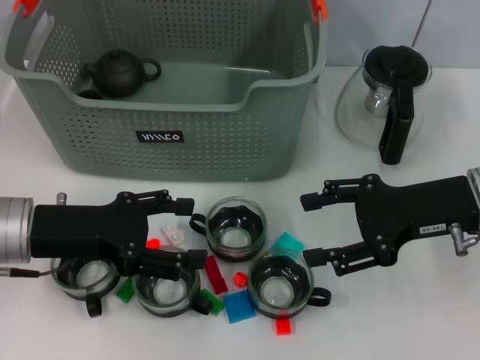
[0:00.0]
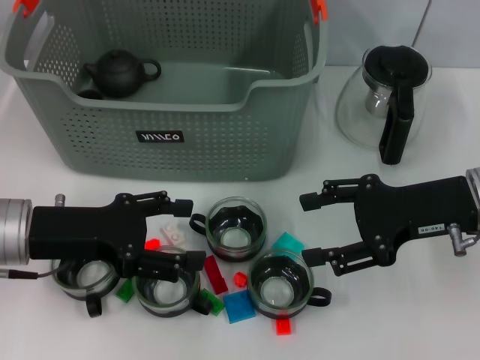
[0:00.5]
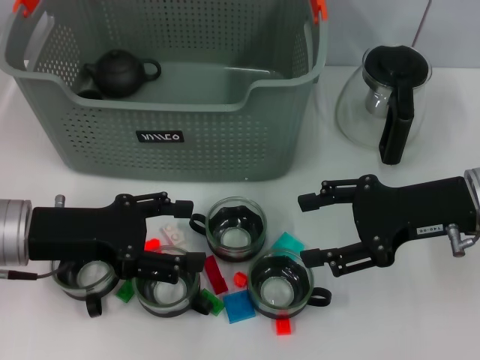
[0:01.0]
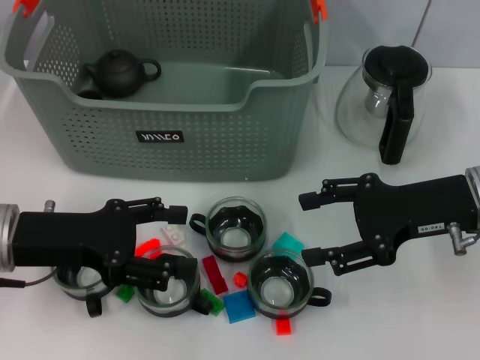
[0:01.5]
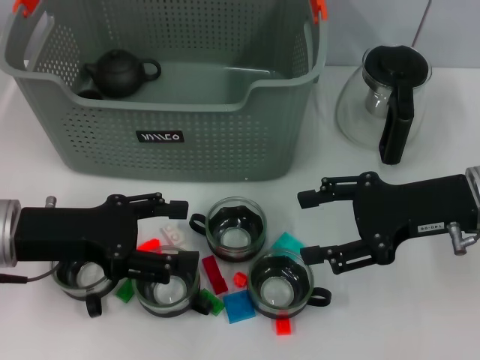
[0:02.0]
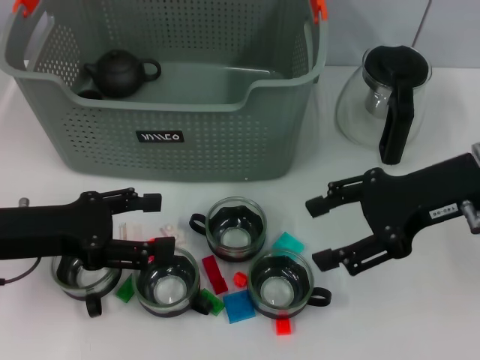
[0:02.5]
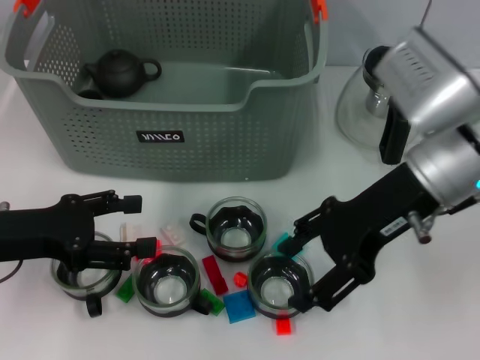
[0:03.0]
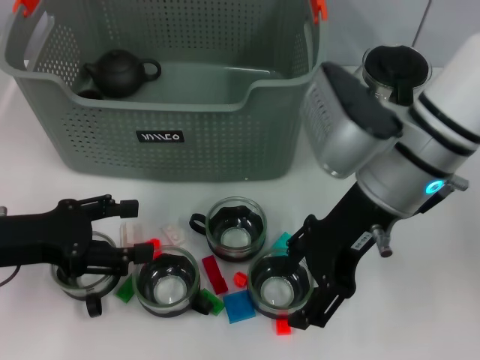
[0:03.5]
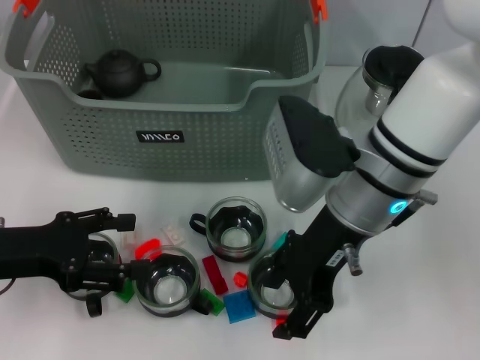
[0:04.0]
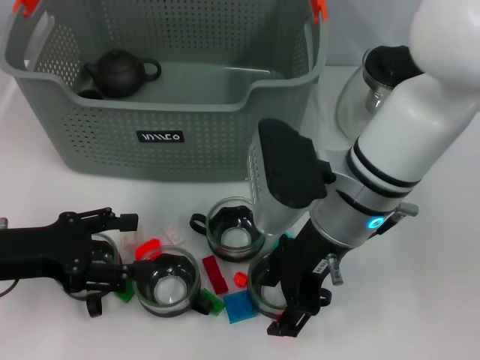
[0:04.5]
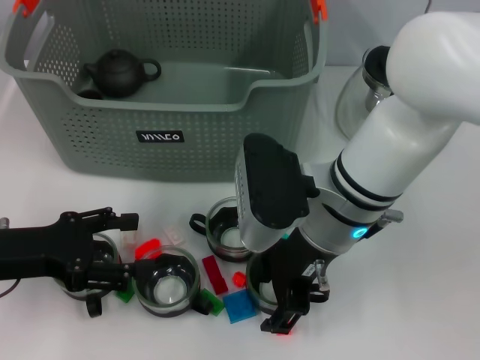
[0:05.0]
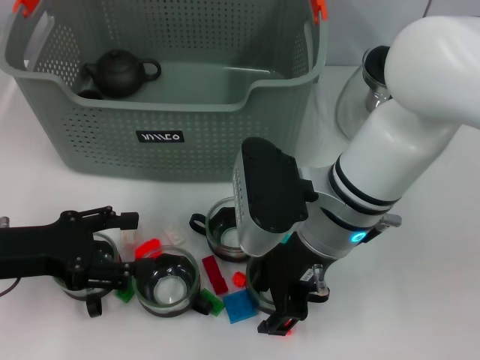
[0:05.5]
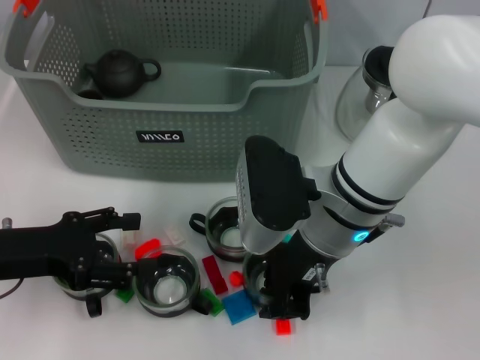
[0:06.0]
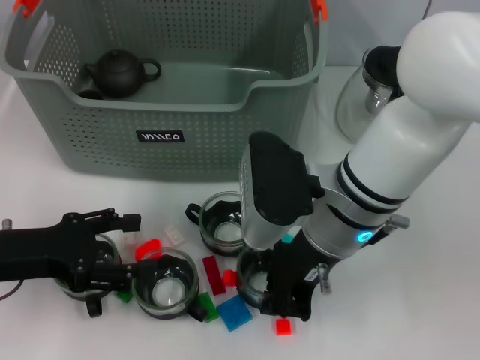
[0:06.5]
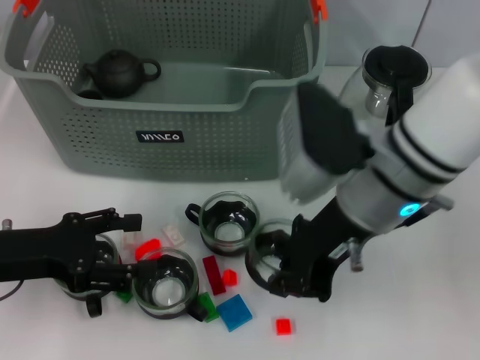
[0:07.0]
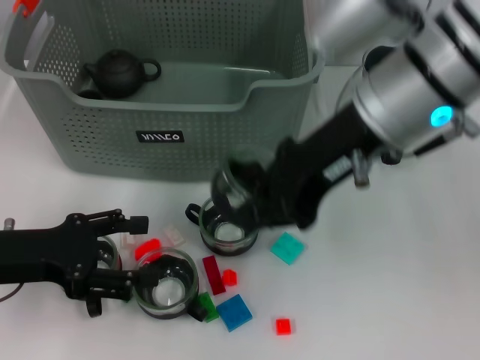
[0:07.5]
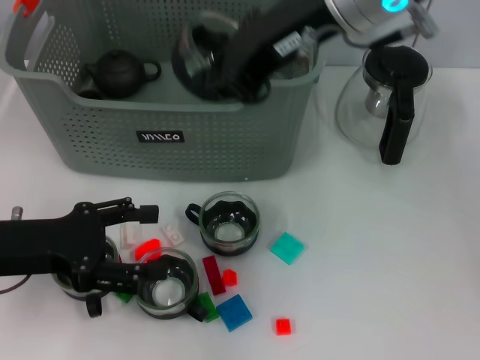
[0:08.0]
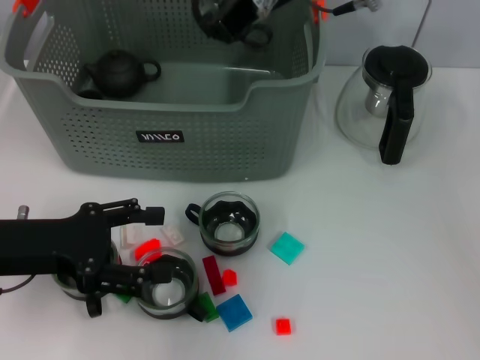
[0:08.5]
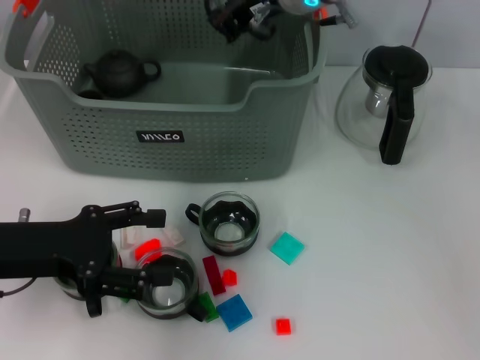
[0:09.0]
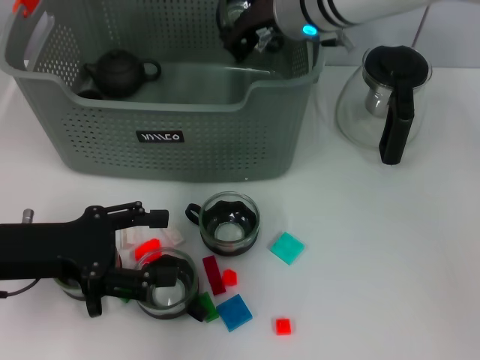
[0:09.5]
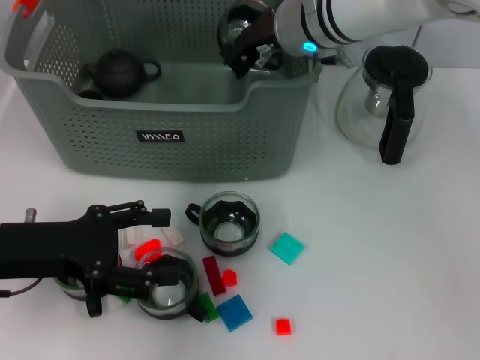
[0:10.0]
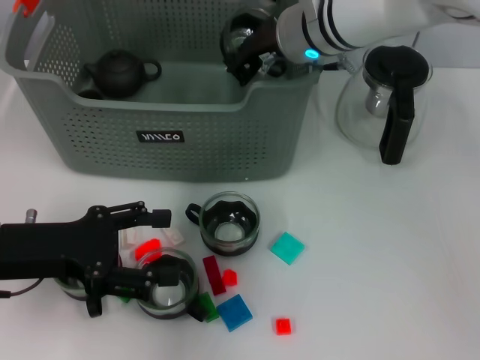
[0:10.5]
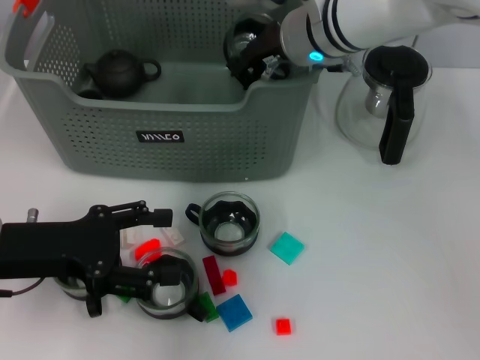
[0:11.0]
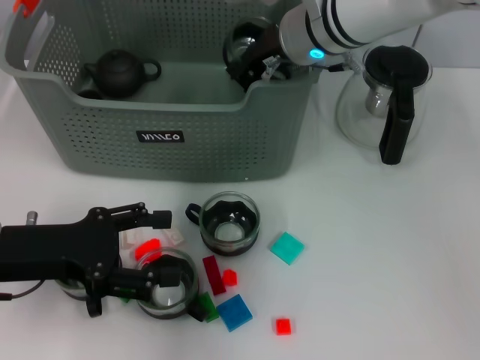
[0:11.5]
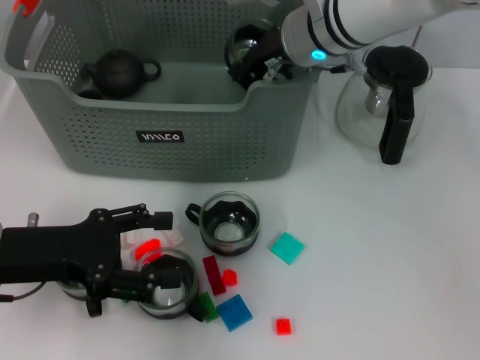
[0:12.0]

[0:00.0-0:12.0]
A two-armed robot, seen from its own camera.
Task of the whole recording: pick up the teacup on the table and place it into the storage bin, pick up the block on the table and place it into the storage bin.
Step, 0:00.0 to 0:05.5: Grasp the cup with right gripper.
0:00.0 to 0:02.0: Neither gripper changes place.
0:02.0 to 0:04.0: The right gripper is displaced to the left by approximately 15 cm.
0:04.0 to 0:06.0: The right gripper closes.
0:06.0 to 0:08.0: The right gripper shifts about 20 cm upward, and closes.
0:08.0 to 0:10.0: The right gripper heads downward and forward, covering about 15 cm.
0:10.0 to 0:12.0: The grippers make only small movements.

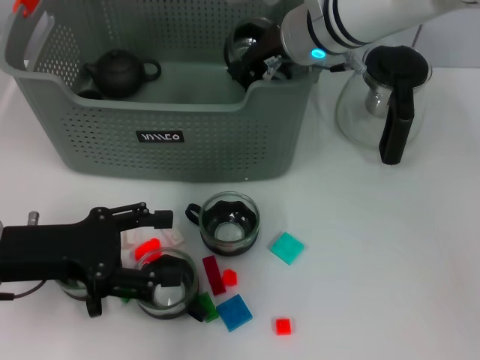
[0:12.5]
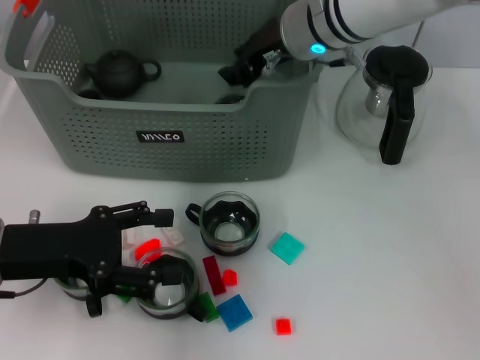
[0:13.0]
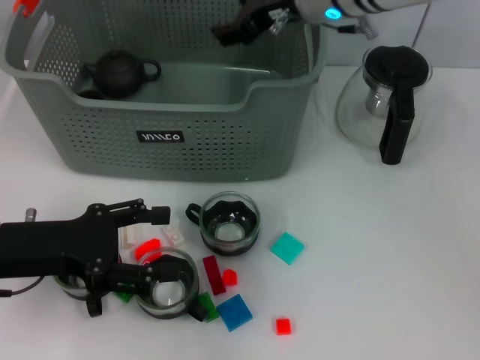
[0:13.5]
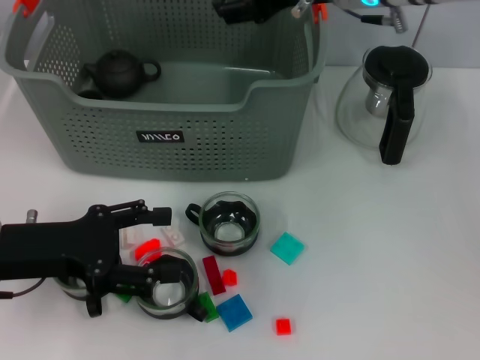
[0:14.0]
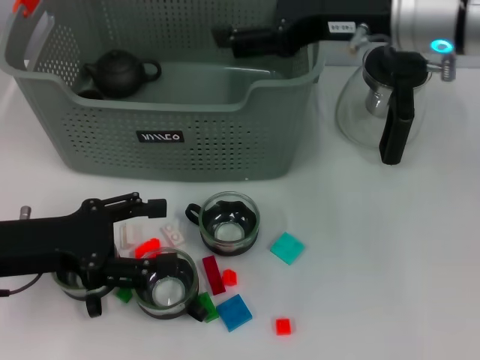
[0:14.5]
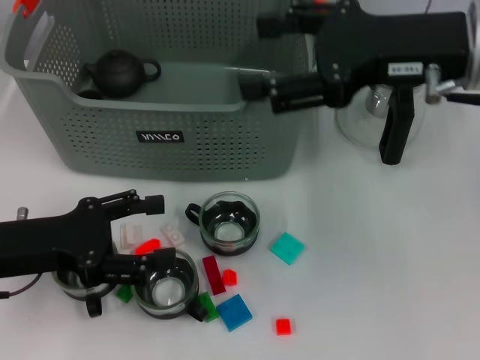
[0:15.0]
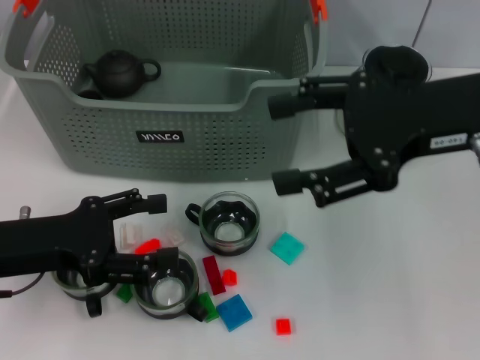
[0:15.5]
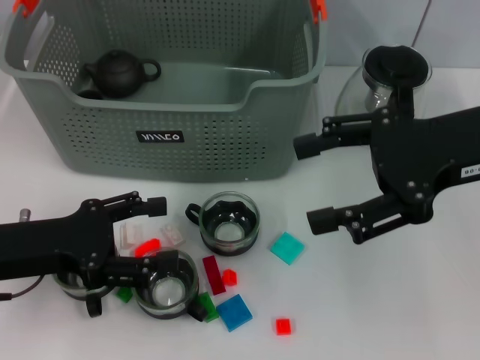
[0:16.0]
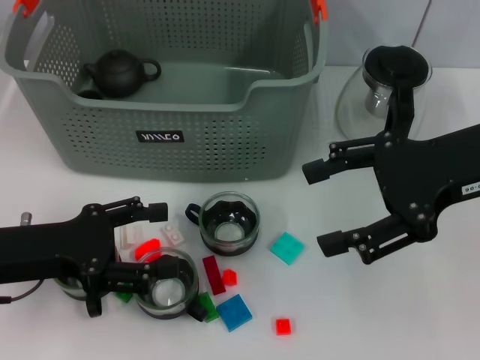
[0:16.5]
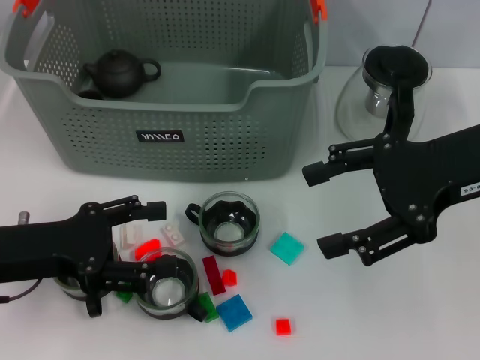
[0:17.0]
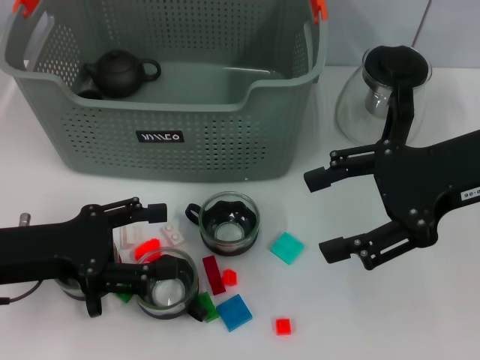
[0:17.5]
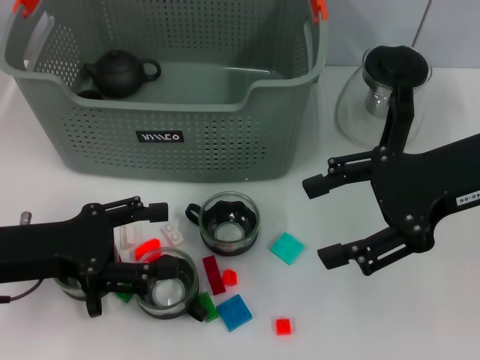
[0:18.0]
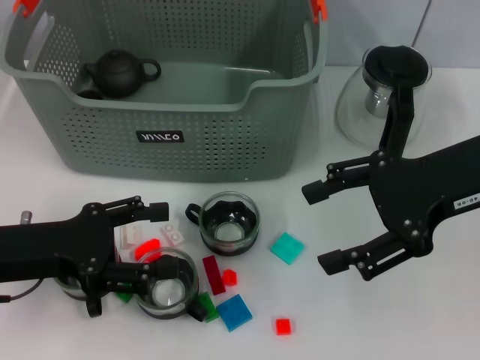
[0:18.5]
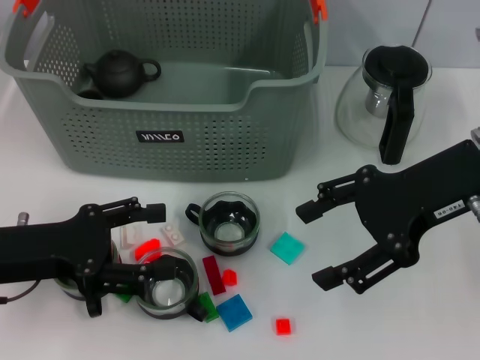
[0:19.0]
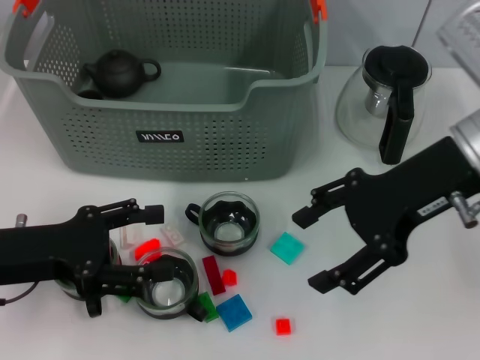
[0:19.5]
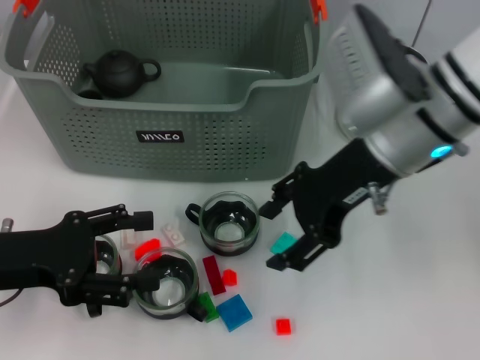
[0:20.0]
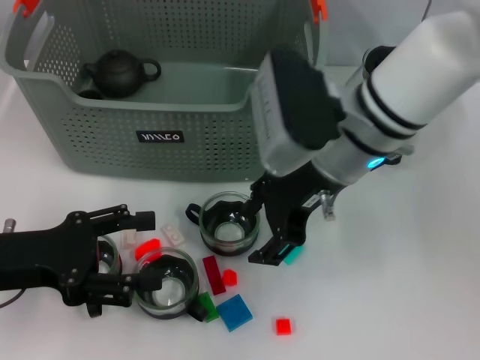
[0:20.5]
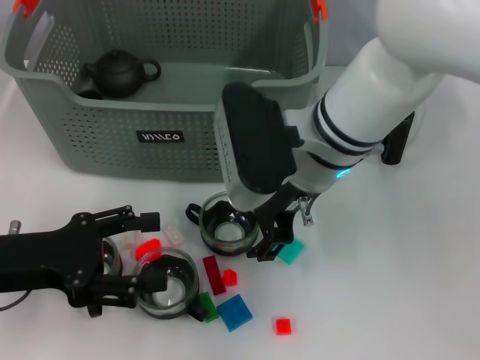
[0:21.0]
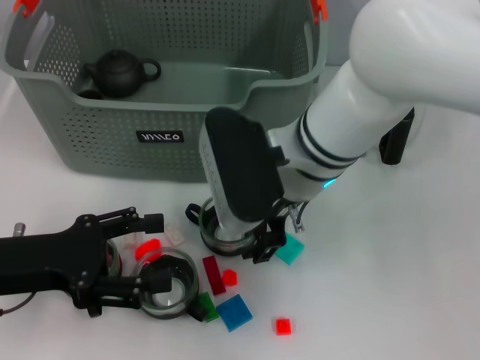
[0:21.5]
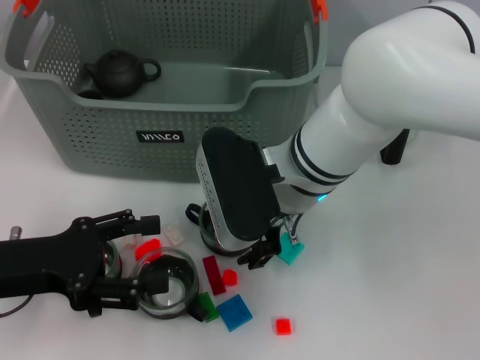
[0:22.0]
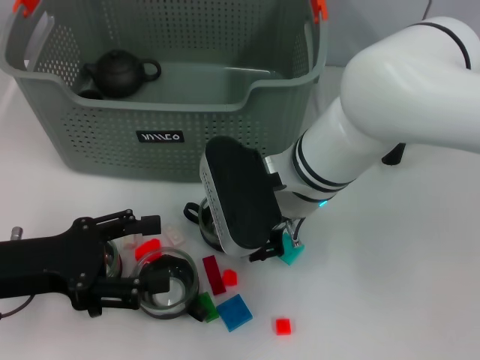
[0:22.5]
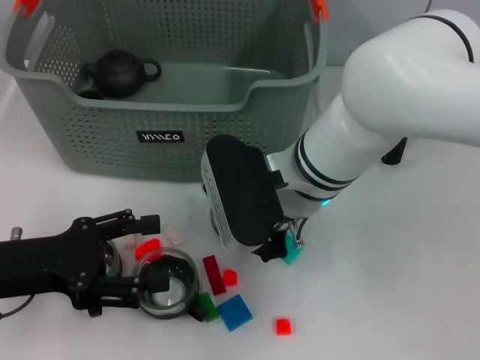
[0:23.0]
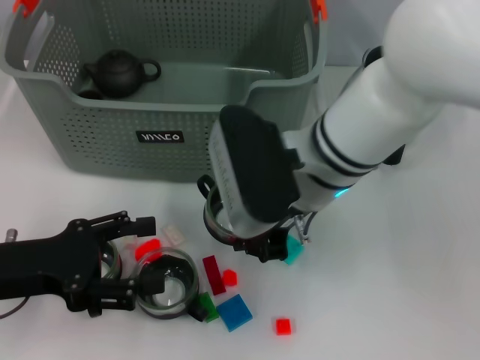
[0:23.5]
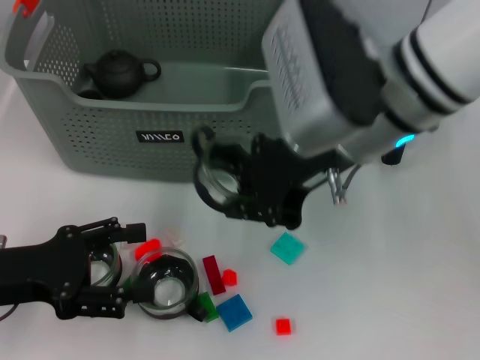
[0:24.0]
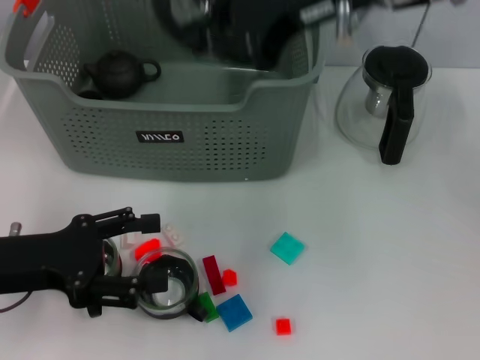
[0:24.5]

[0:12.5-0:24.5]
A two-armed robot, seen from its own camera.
Task of the whole recording: pick up the teacup on the table and place it into the storage bin, pick up the block on the table and place it into the storage bin.
Step, 0:13.5 to 0:22.0: Grasp the cup with right gripper.
0:12.5 to 0:14.5: The right gripper goes approximately 15 cm to the right, backward and upward, and opens up.
0:14.5 to 0:16.5: The right gripper heads to the right and backward, covering about 10 cm.
0:16.5 to 0:18.5: The two grippers keep their place.
0:18.5 to 0:20.5: The right gripper travels to the left by about 15 cm.
0:20.5 to 0:22.5: The right gripper changes place by about 5 cm, and closes its fingers.
0:22.5 to 0:24.5: The right gripper goes approximately 20 cm upward, and closes up.

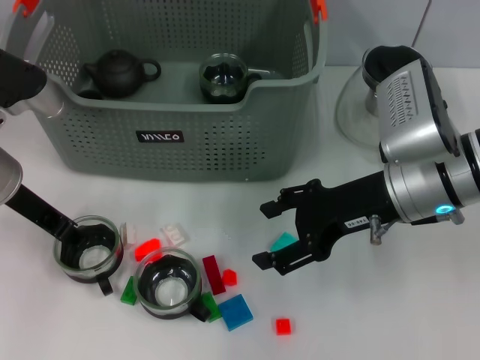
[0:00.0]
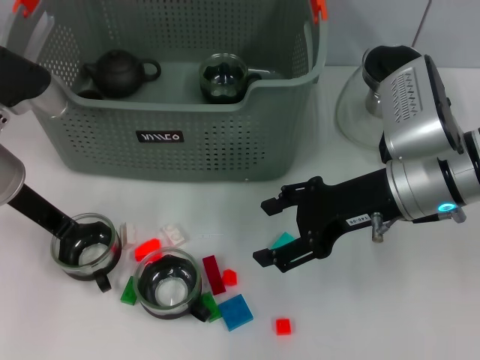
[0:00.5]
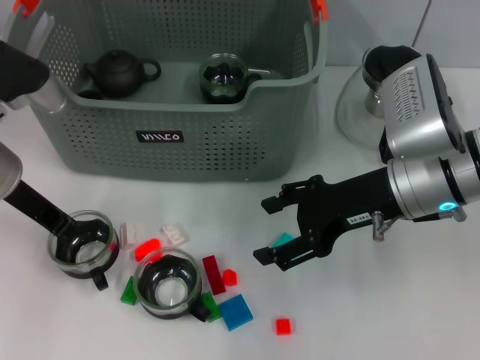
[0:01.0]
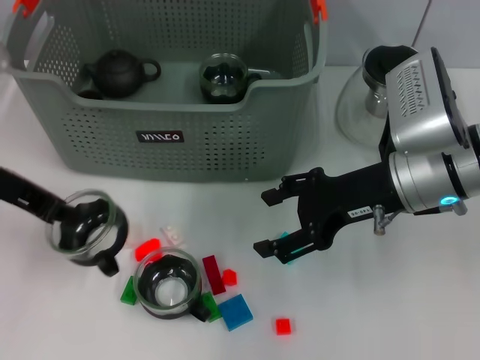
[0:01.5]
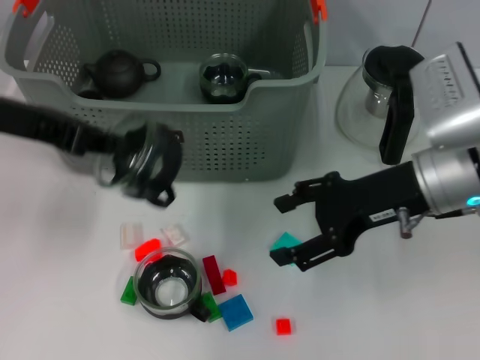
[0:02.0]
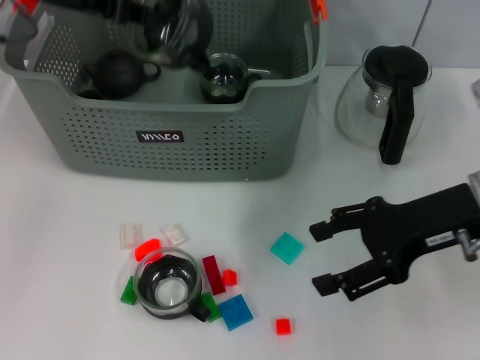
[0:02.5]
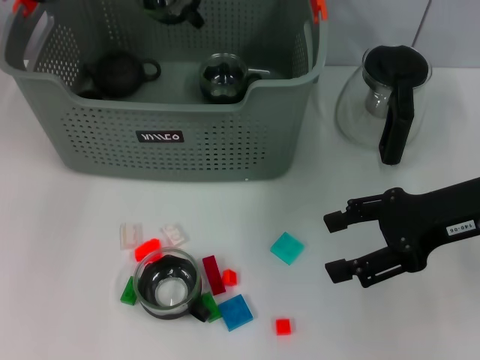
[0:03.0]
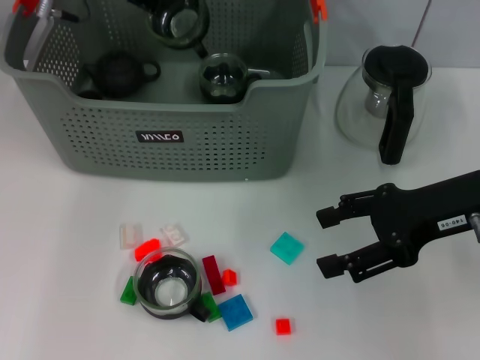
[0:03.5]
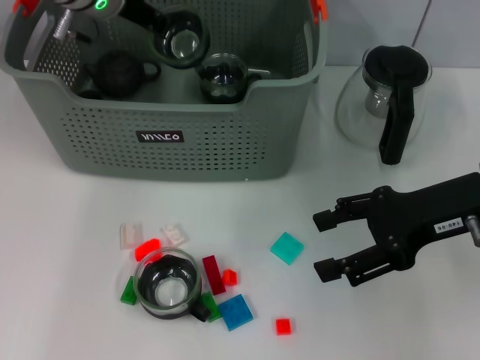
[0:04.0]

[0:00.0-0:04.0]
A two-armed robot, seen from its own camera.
Task of the whole recording: pick up the teacup on the table and place it into the storage bin, pick up the block on the table and place it into the storage bin.
0:00.0 to 0:02.0: The left gripper travels upward by about 10 cm, and closes its fingers.
0:02.0 to 0:04.0: The left gripper heads forward and to the right, covering about 20 cm. Meanwhile the right gripper changes place by roughly 5 cm.
